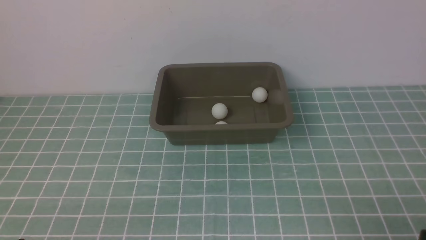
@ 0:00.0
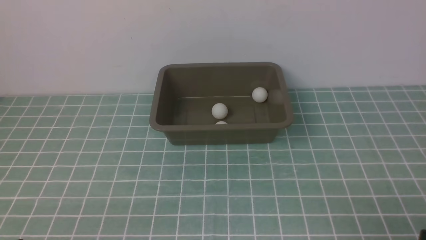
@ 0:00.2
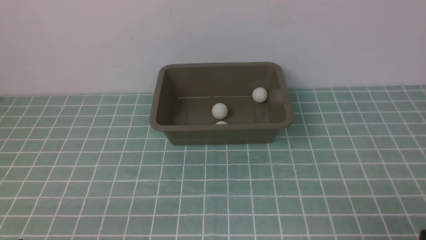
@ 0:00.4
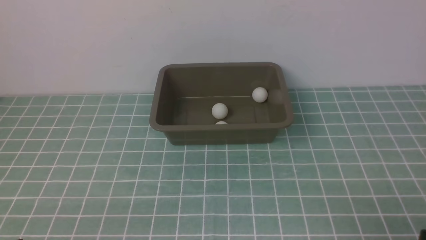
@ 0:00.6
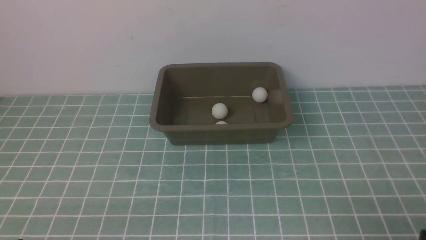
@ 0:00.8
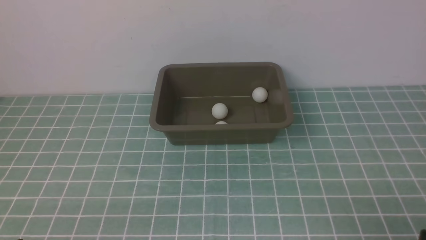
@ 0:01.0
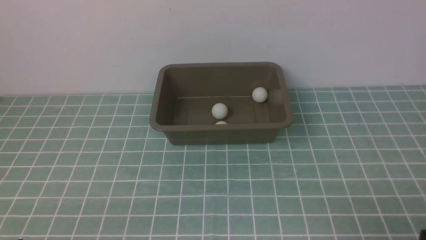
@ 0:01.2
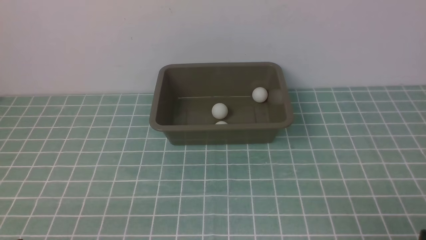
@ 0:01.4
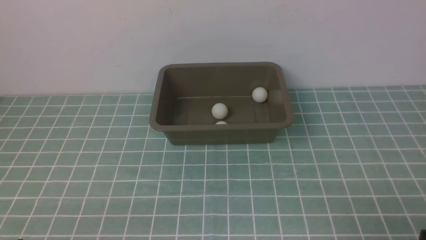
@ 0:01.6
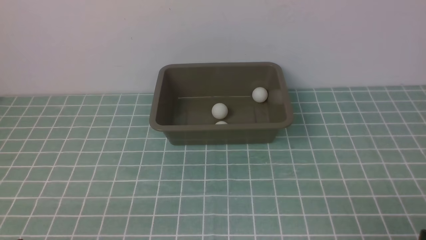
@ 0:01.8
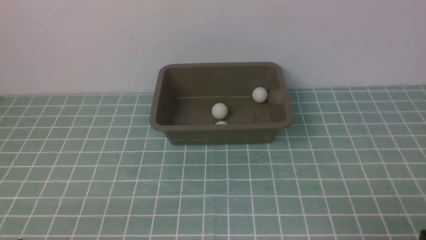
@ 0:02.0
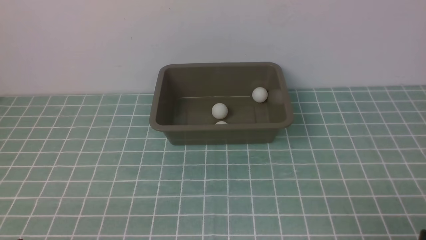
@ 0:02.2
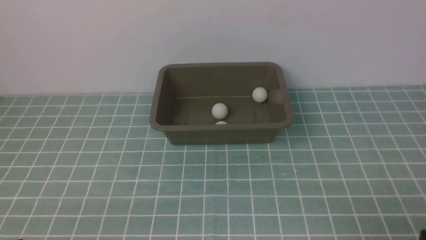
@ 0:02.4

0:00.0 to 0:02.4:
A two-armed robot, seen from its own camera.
0:00.0 to 0:02.4: The two grippers keep their place.
